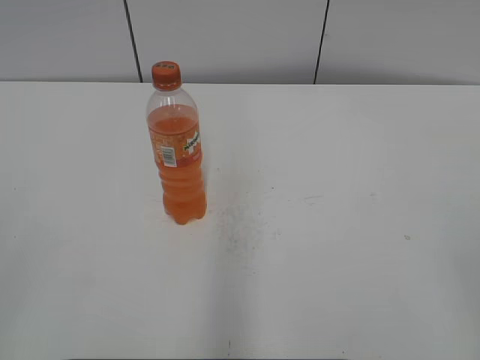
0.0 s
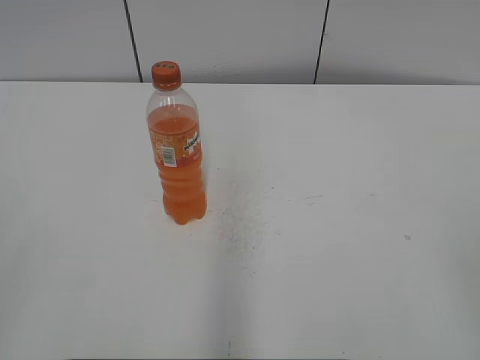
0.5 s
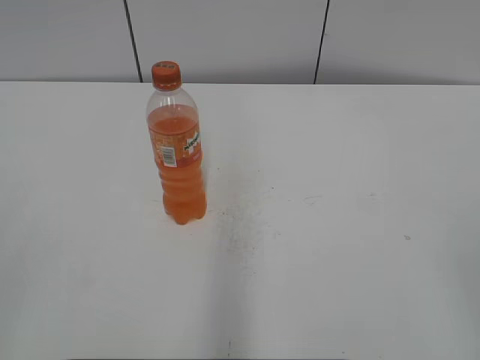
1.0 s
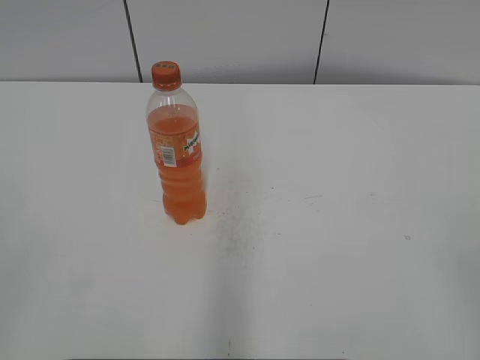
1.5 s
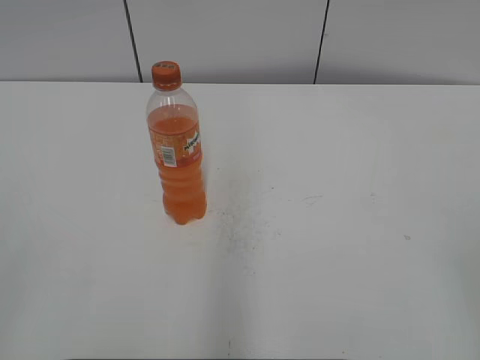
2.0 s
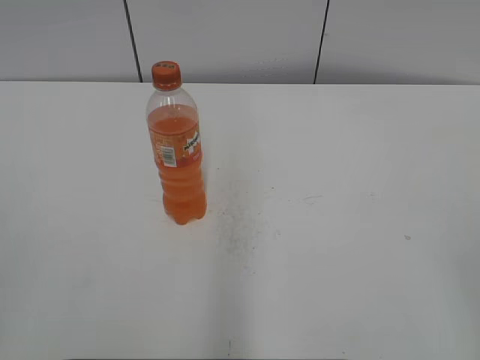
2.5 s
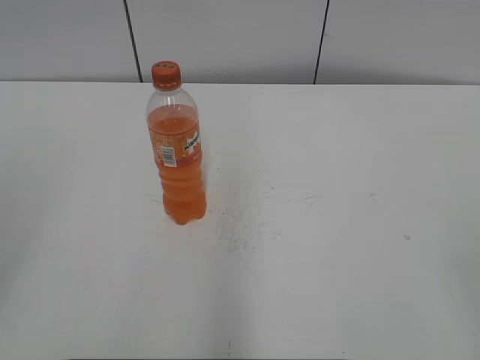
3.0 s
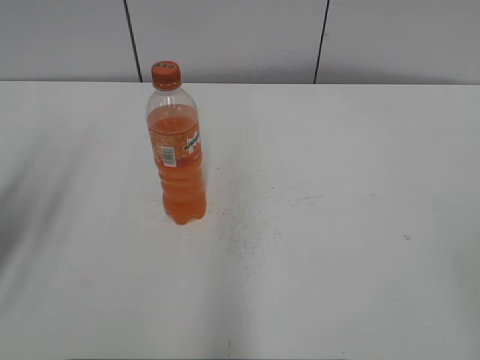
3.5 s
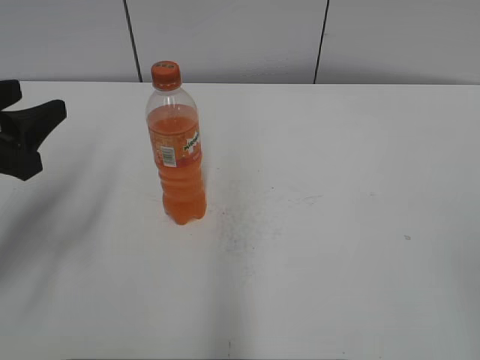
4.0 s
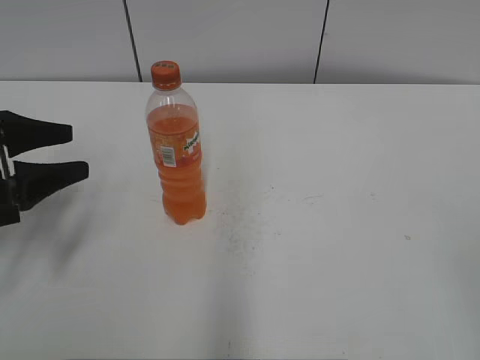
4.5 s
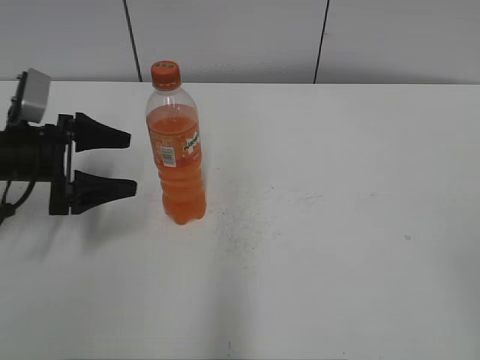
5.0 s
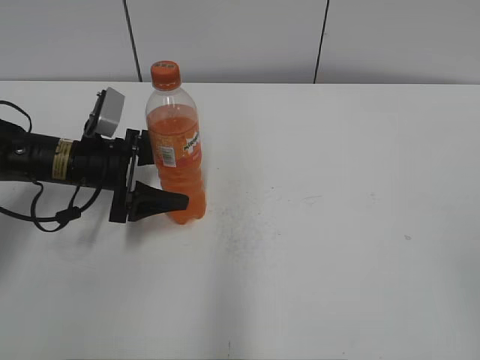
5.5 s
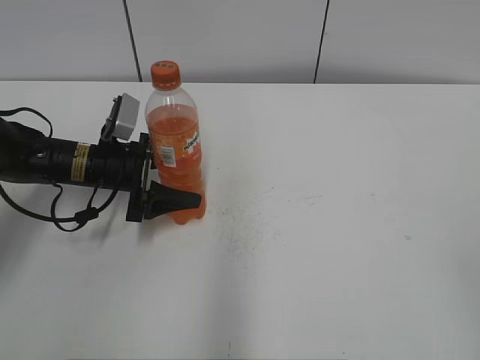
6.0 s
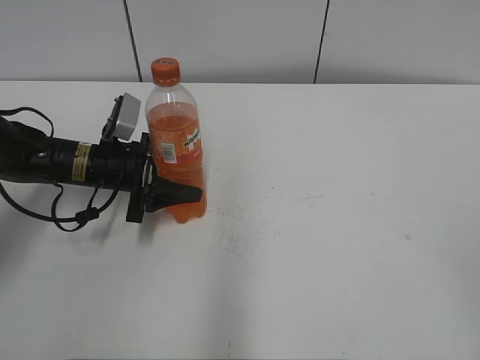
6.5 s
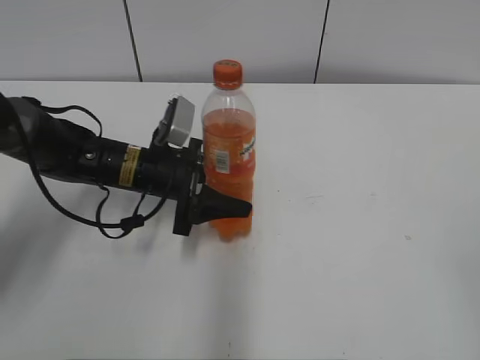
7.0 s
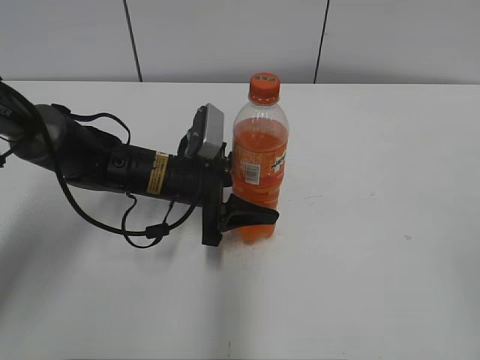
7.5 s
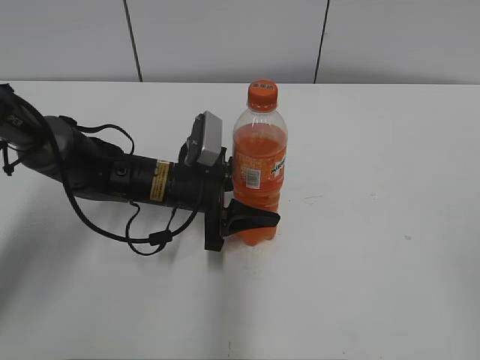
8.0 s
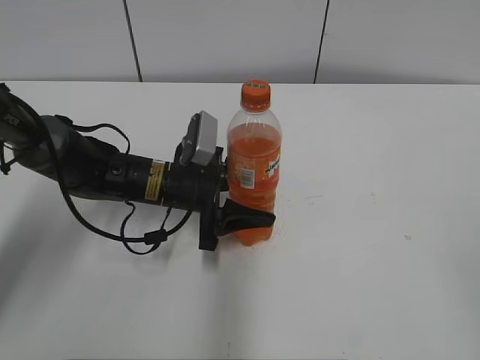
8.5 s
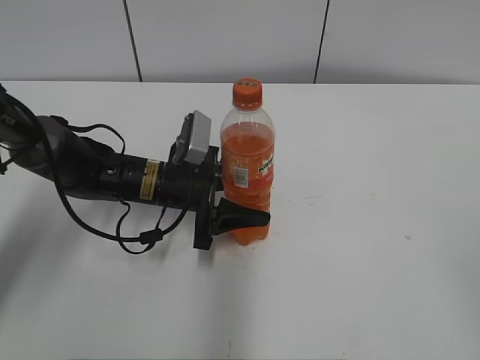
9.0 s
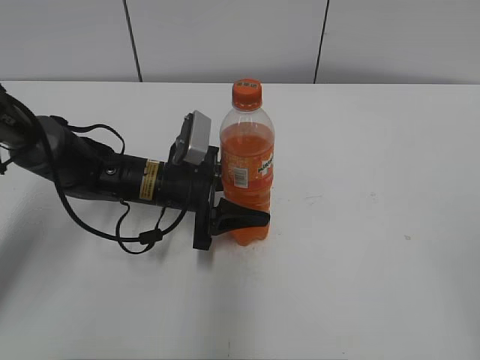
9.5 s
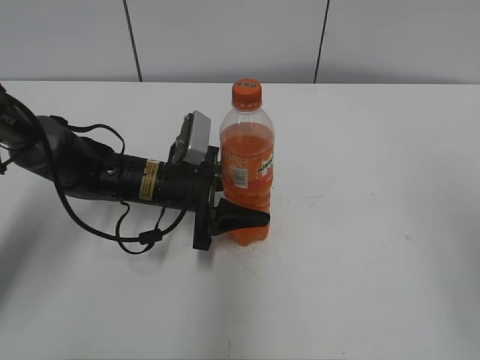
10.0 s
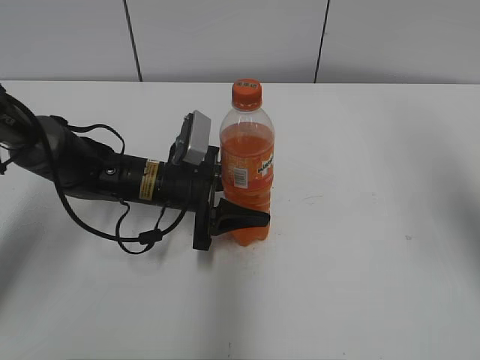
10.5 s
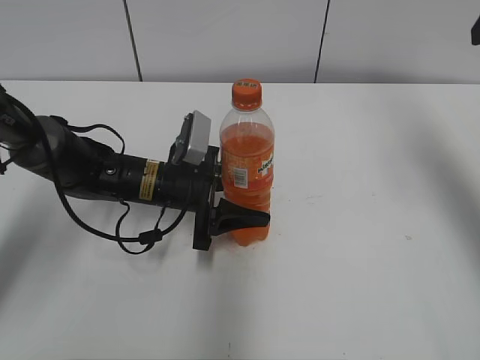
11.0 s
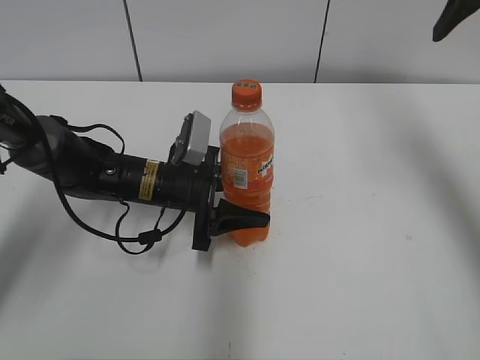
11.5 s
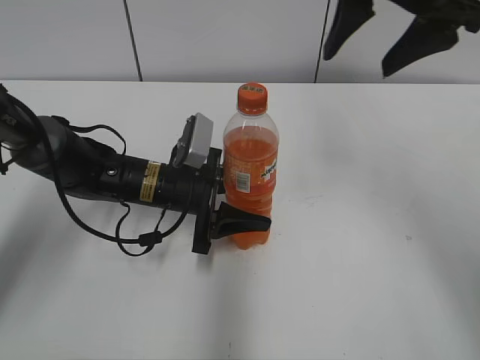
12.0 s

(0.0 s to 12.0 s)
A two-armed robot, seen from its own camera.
Step, 0.0 s - 6.0 s: Grab the Mirinda with the left hand.
Step, 6.5 s - 7.5 s: Move the Mirinda from left to right.
2.0 s - 4.0 s: The left gripper is displaced forward by about 25 cm.
4.0 s - 6.0 s: The left gripper moves forward, downward and to the right, some 20 cm, and opens up.
6.0 s - 8.0 s: The left gripper shifts about 10 cm to the right, and closes.
8.0 s - 10.0 s: The right gripper heads forward, covering some 10 cm.
10.0 s - 12.0 s: The right gripper shifts some 25 cm forward and to the left.

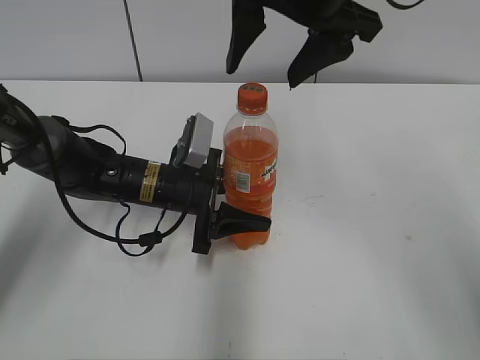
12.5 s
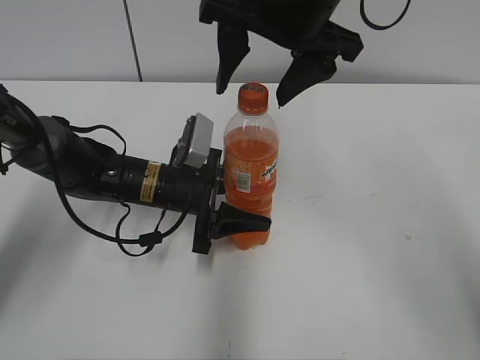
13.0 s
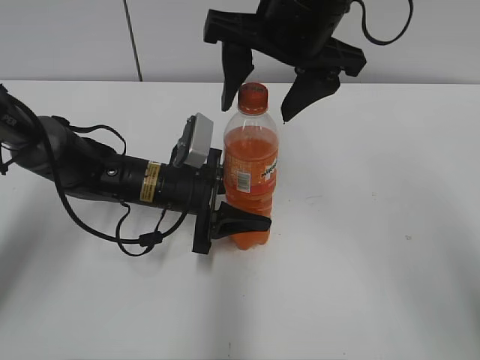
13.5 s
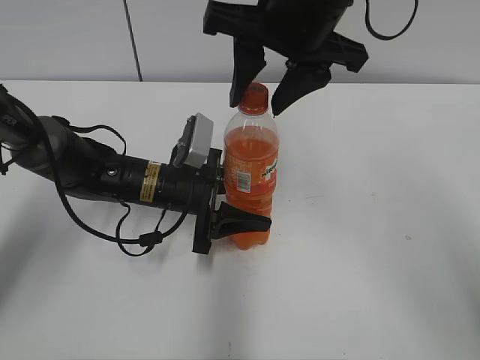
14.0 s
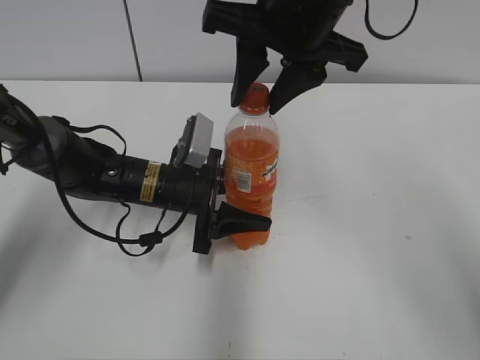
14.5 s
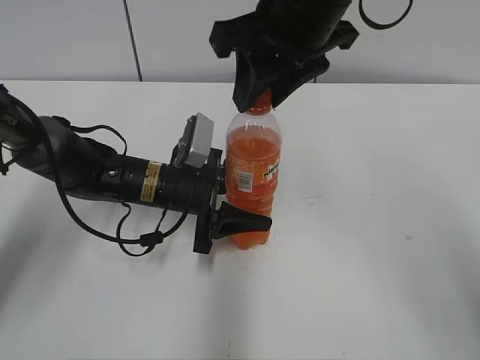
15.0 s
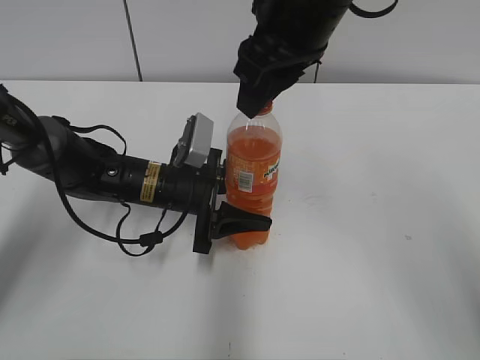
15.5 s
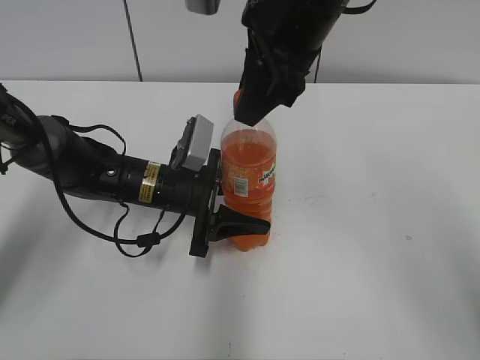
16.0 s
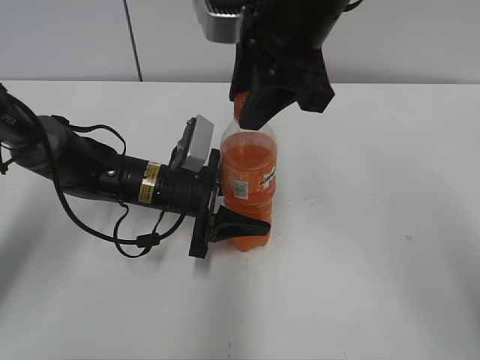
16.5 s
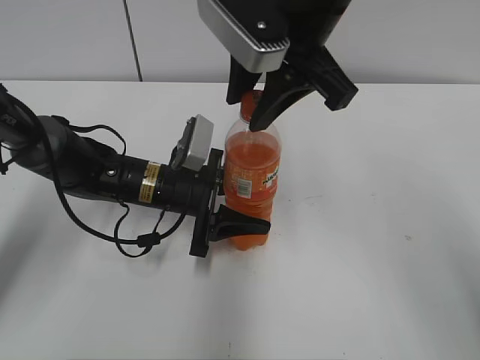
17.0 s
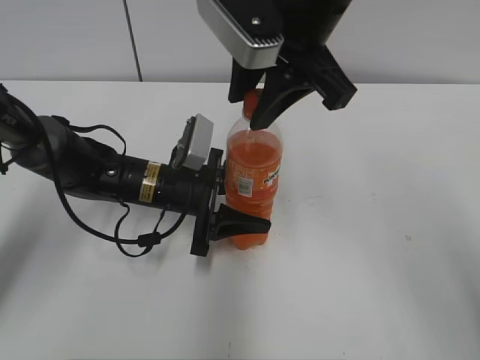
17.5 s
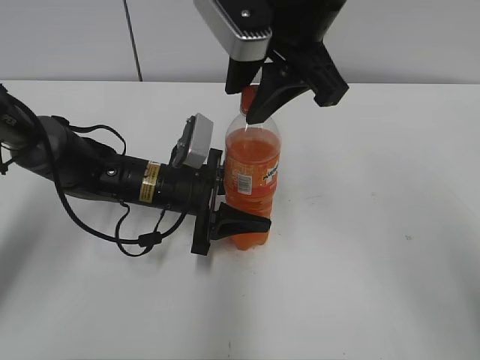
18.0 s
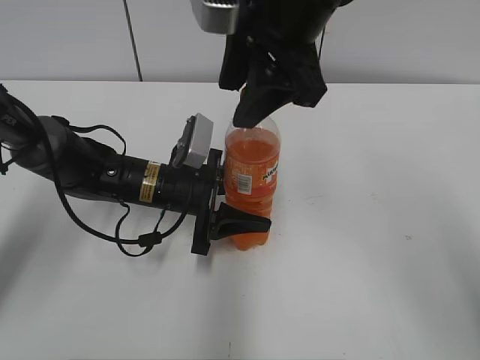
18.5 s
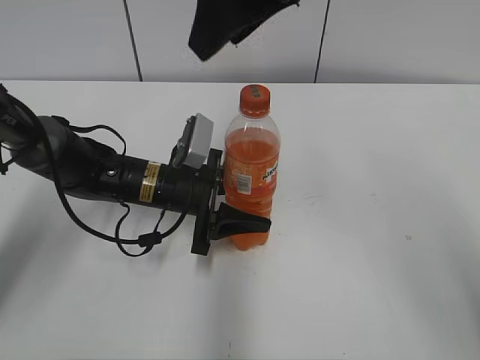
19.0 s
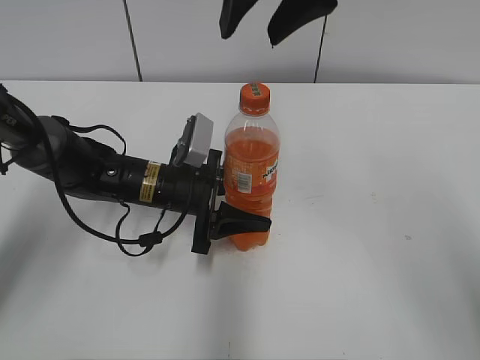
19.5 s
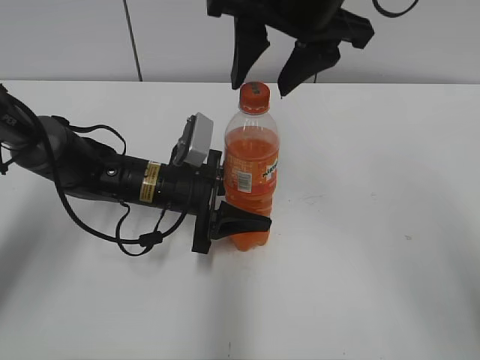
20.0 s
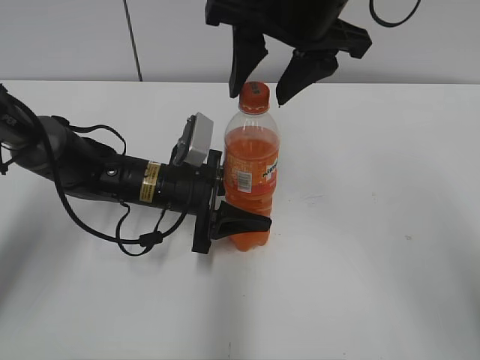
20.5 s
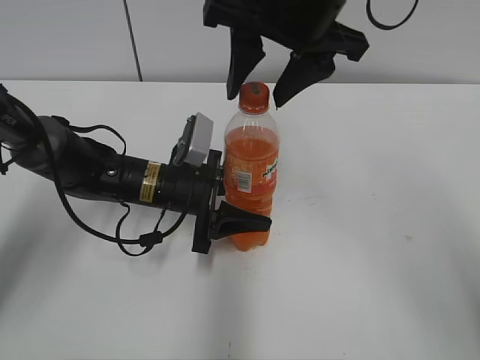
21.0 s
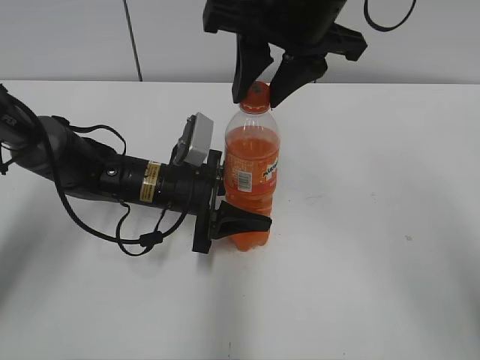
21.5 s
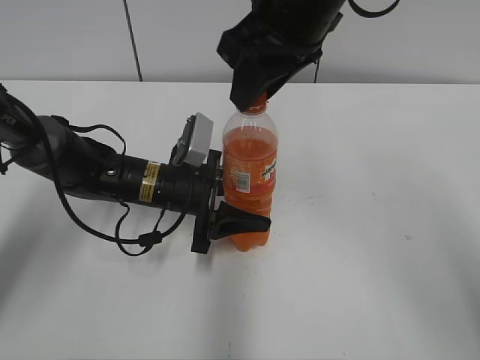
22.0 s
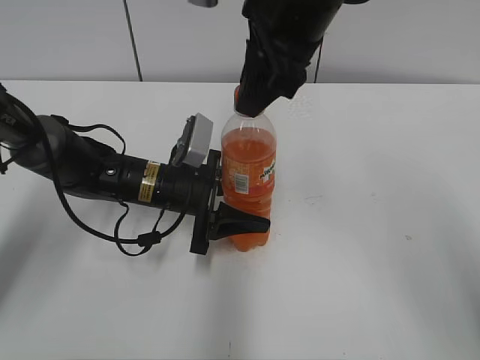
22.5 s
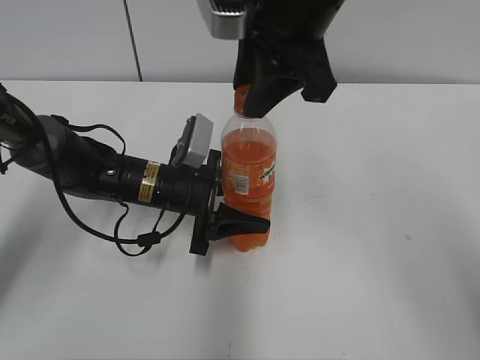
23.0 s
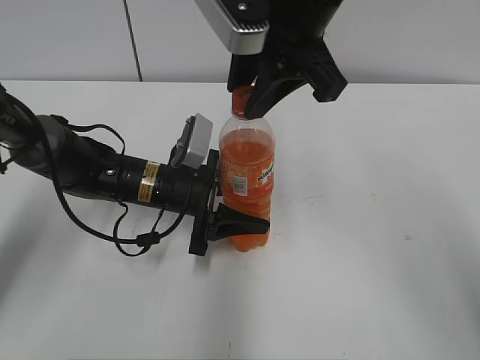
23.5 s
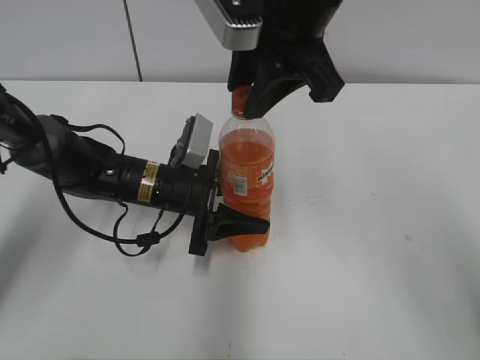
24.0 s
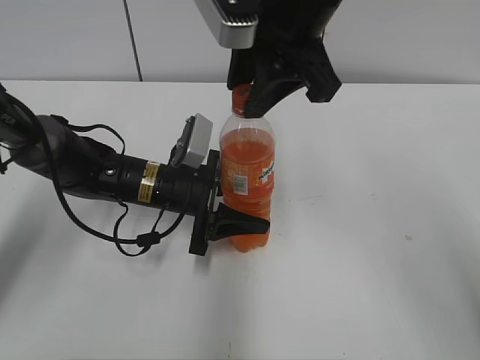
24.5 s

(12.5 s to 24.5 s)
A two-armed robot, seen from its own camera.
12.5 s - 14.5 s: The right gripper closes its fingers.
16.5 s - 18.5 s: The right gripper opens.
20.5 s - 22.5 s: The right gripper closes up.

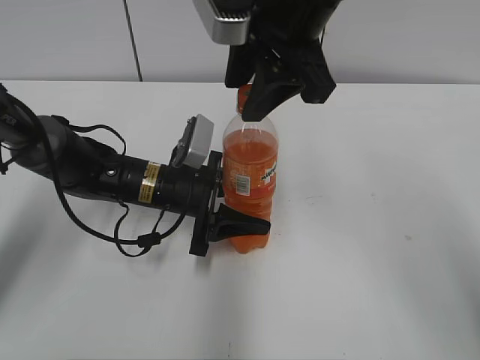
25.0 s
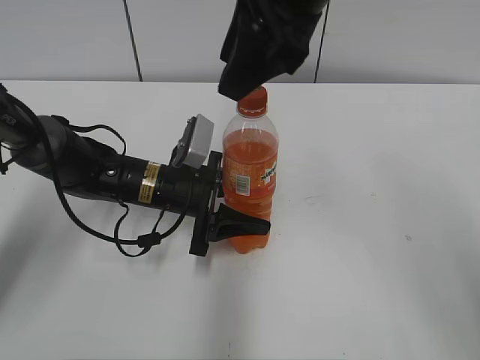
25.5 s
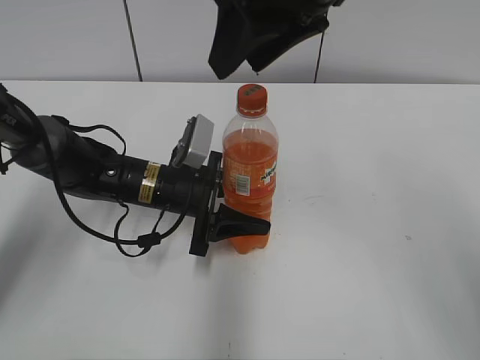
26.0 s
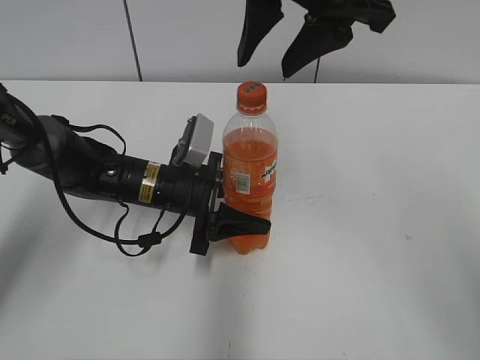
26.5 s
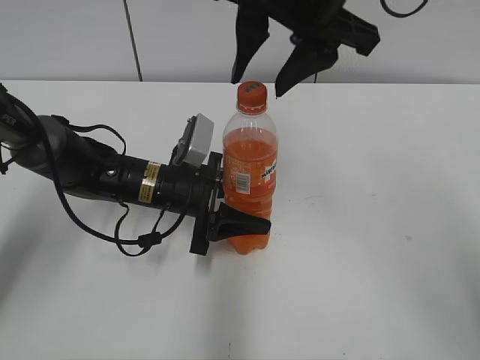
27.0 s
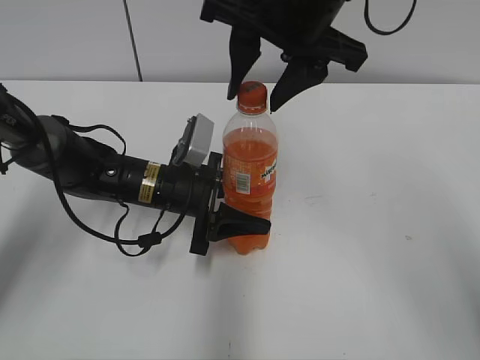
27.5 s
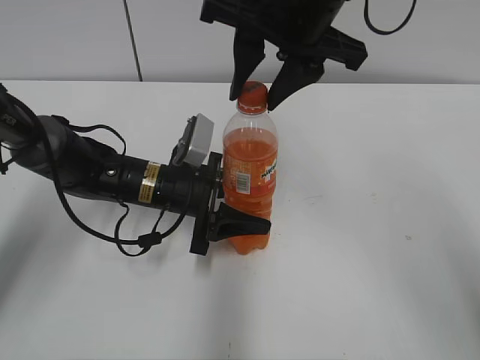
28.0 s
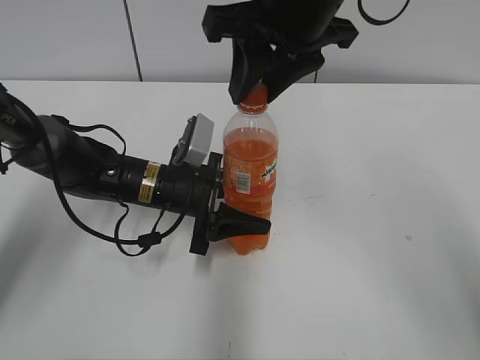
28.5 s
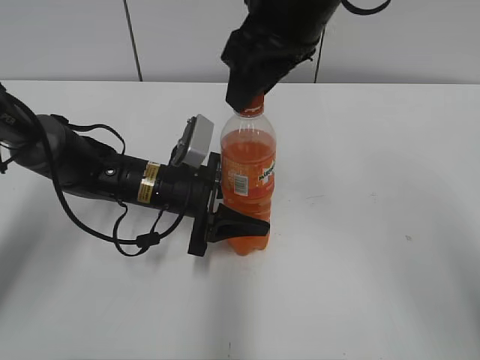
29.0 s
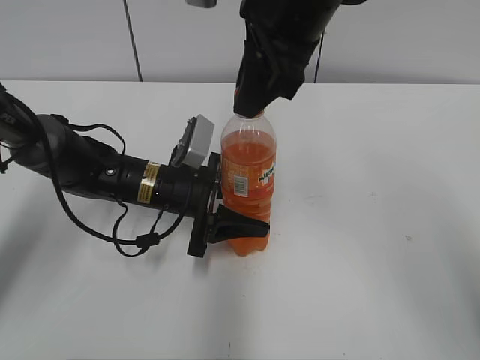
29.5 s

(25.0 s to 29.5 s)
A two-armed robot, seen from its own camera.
27.0 s - 29.5 s: The right gripper closes its fingers.
